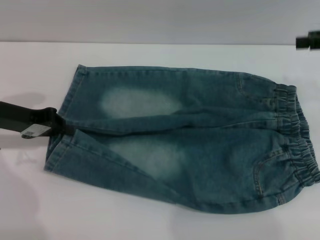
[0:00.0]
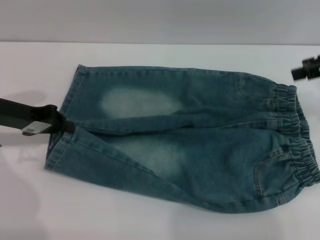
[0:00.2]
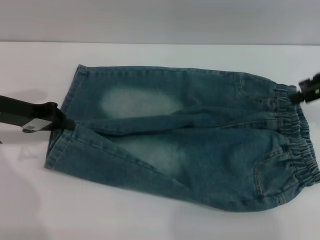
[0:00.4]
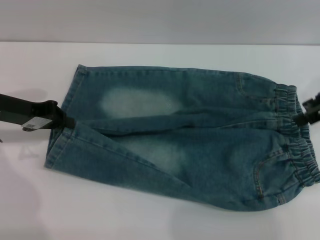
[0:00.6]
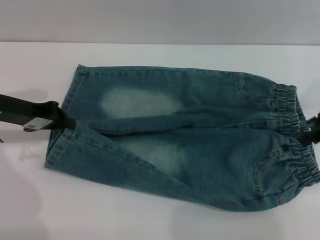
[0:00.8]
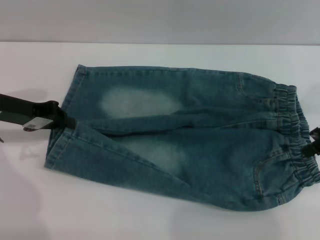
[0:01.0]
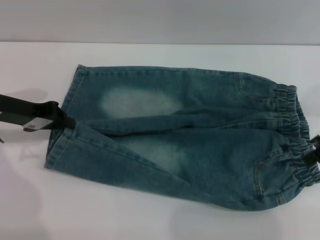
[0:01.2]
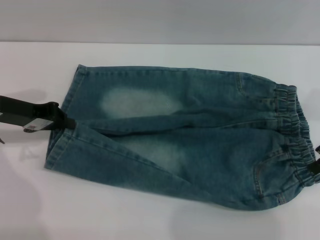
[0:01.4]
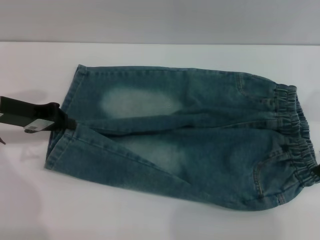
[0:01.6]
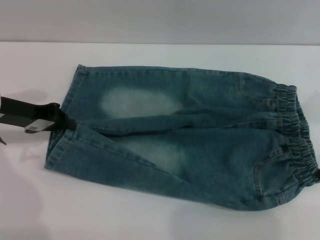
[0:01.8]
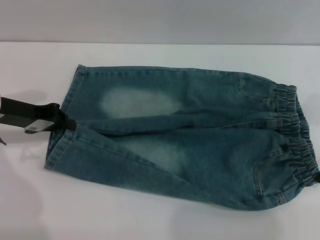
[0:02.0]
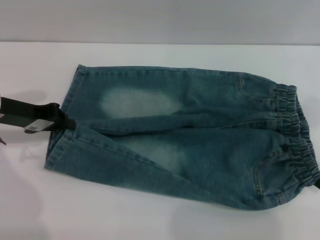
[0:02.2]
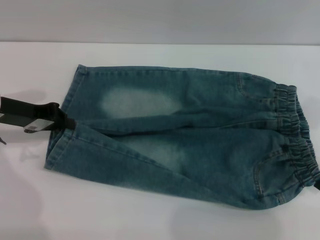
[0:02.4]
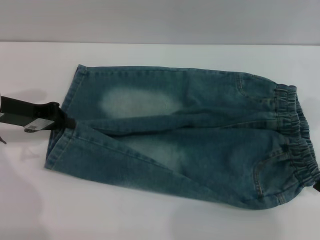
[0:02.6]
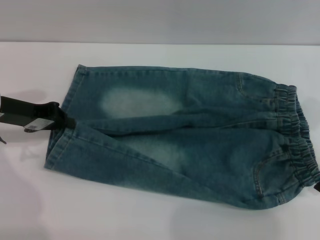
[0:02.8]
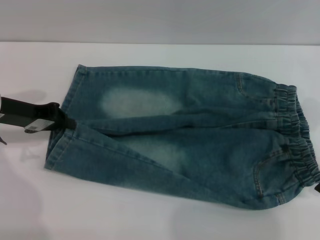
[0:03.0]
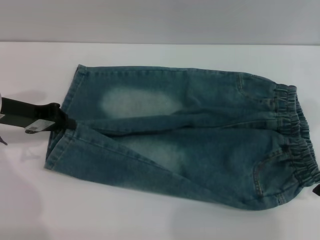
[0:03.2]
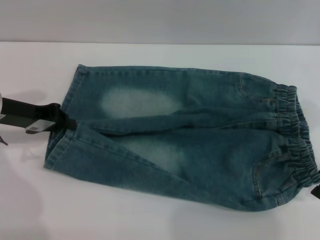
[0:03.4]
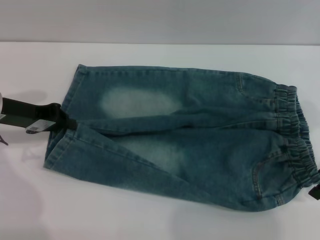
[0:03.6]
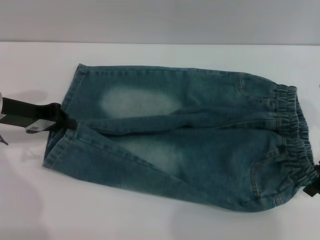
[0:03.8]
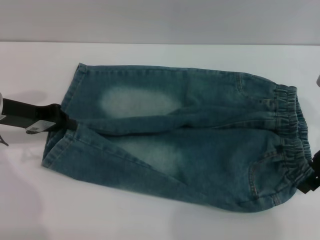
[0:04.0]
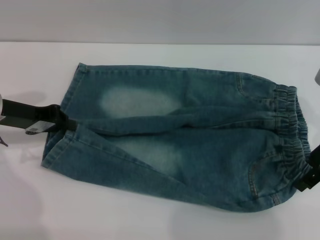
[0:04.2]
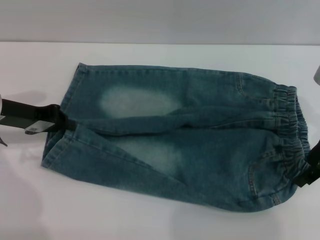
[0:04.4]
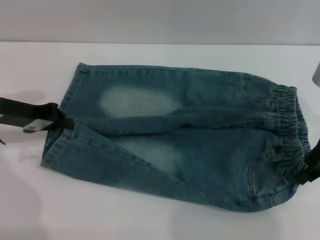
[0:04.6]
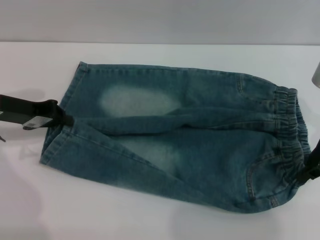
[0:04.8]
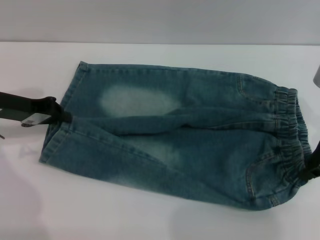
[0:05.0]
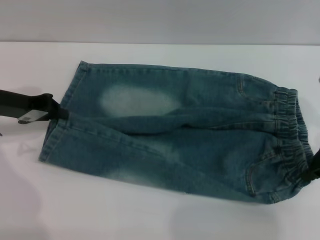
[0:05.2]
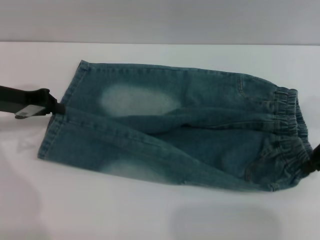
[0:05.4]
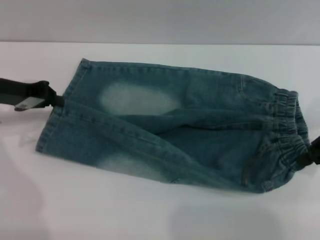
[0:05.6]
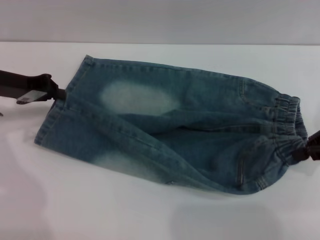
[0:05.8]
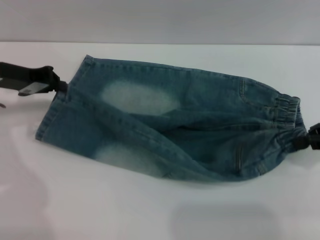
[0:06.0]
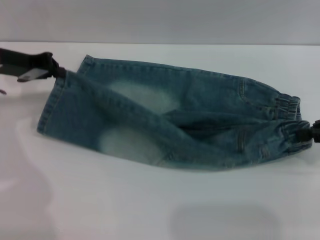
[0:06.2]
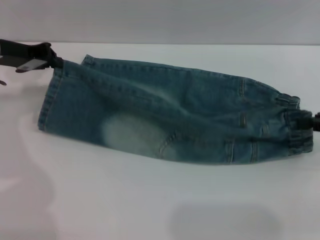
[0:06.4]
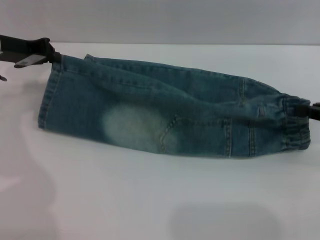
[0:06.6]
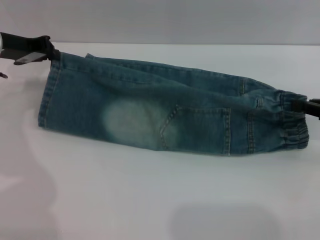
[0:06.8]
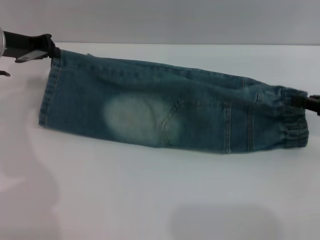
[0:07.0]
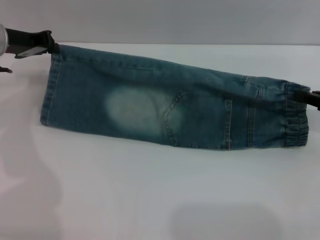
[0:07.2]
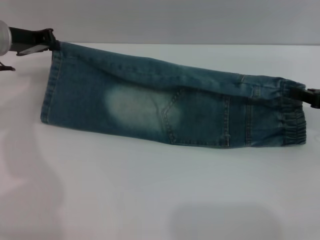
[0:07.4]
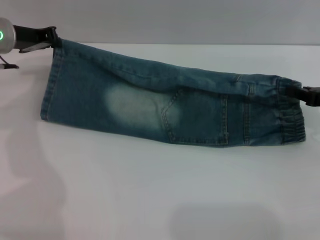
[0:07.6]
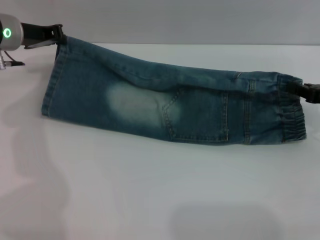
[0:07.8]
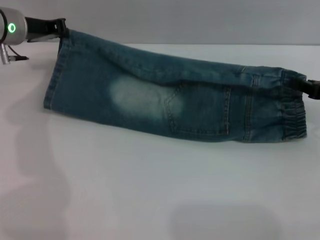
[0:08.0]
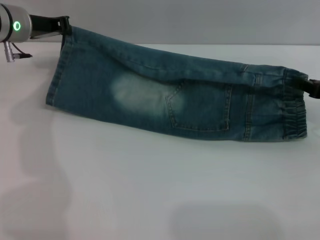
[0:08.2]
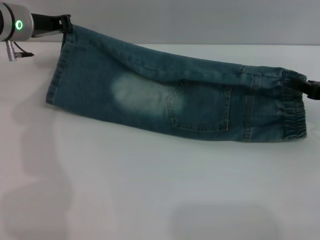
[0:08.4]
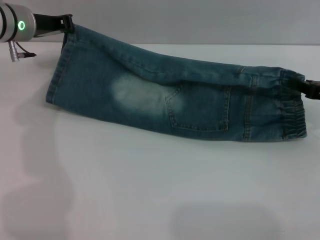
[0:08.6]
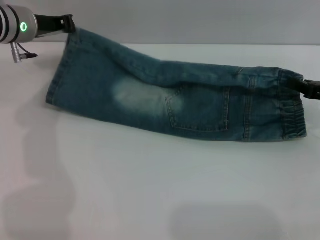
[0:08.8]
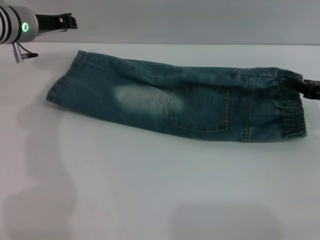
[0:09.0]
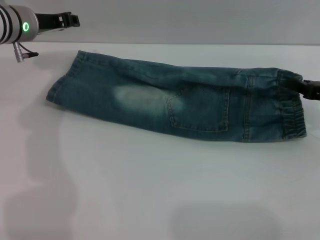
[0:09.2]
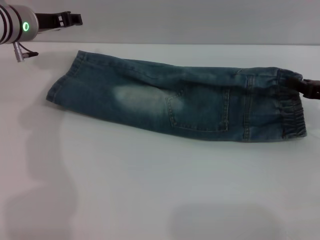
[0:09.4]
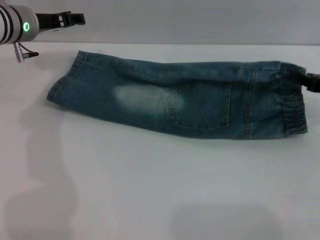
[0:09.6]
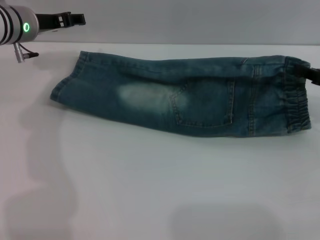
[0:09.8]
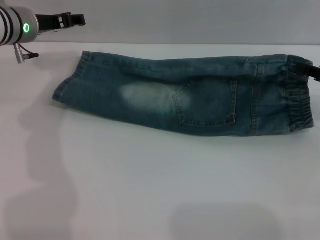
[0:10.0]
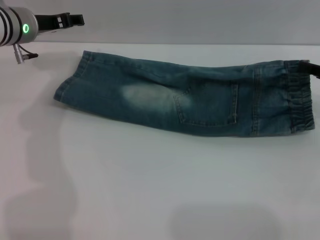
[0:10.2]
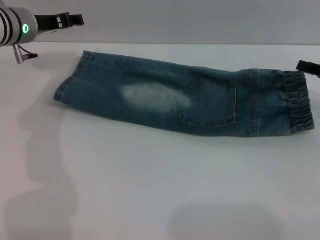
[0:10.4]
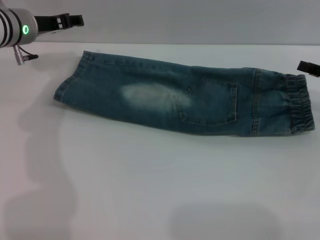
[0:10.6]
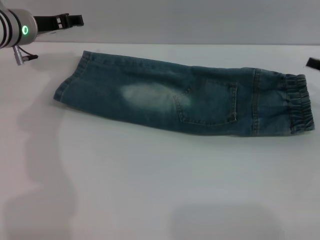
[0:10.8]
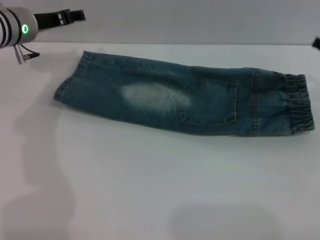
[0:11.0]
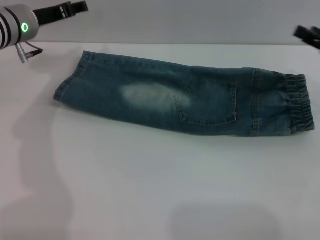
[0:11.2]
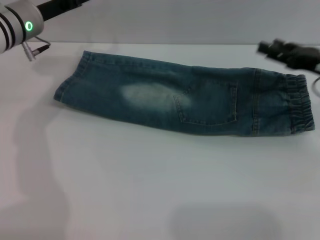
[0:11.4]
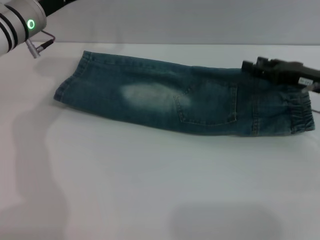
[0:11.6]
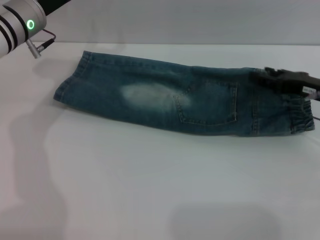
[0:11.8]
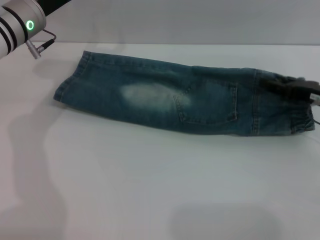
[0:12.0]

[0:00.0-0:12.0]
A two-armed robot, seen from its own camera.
Step, 0:00.0 to 0:10.4: Fold the bottom of the pants upward with both grippers.
0:00.0 to 0:01.6: The right gripper goes about 5 cm downward.
0:01.6 to 0:04.4: There are only small adjustments of the grippers.
0:04.4 to 0:06.0: The right gripper travels to the right by some 5 cm, and closes up.
0:06.0 to 0:07.6: The left gripper changes place by about 5 cm; the right gripper travels downward by roughly 5 cm.
0:07.6 to 0:09.0: The grippers stay close to where they were, moving slightly.
0:09.0 to 0:10.4: The left gripper opens up.
0:10.4 to 0:12.0: The right gripper shifts by about 5 cm, and opens.

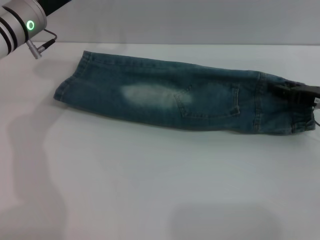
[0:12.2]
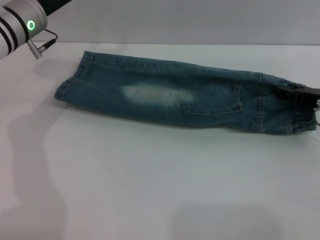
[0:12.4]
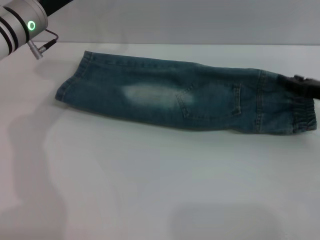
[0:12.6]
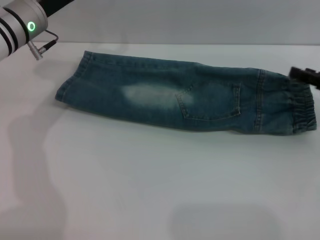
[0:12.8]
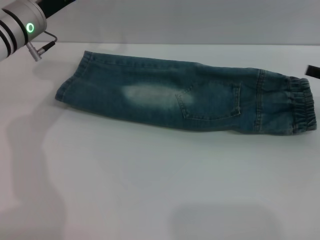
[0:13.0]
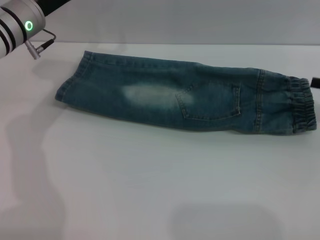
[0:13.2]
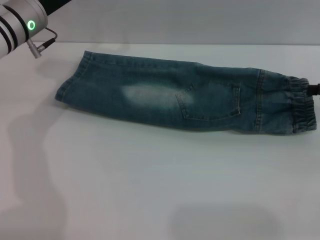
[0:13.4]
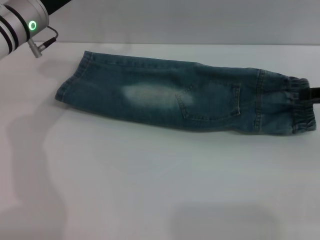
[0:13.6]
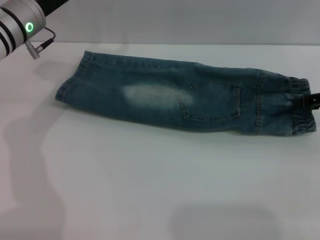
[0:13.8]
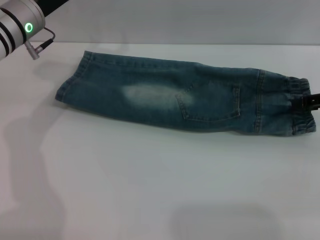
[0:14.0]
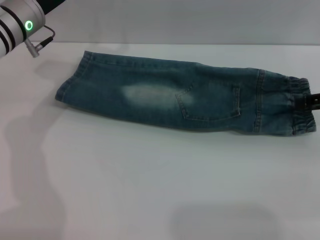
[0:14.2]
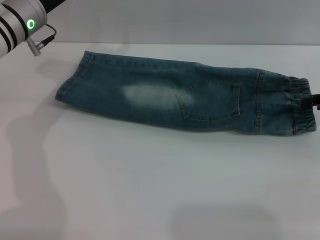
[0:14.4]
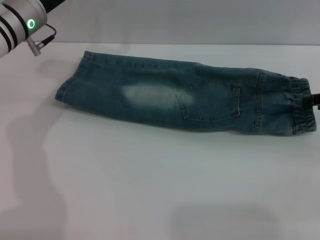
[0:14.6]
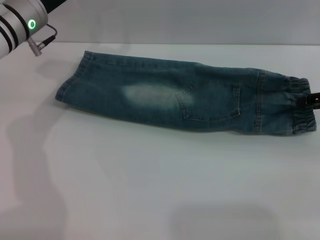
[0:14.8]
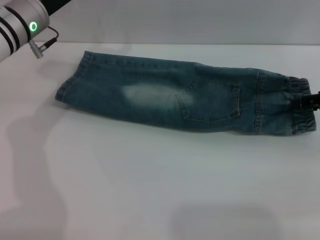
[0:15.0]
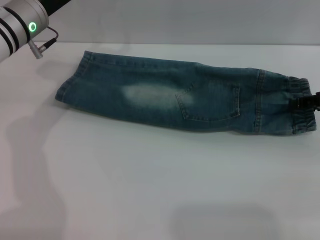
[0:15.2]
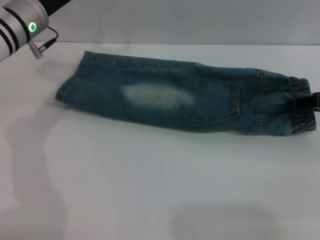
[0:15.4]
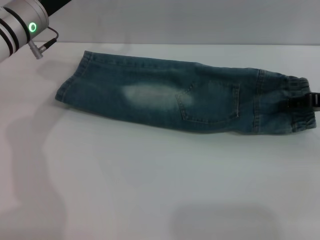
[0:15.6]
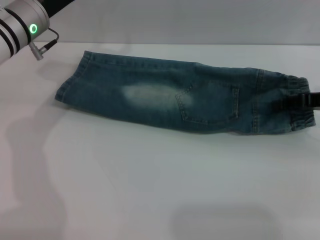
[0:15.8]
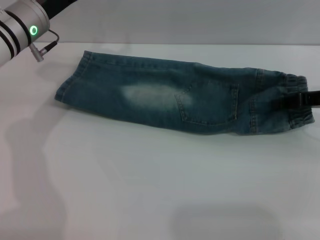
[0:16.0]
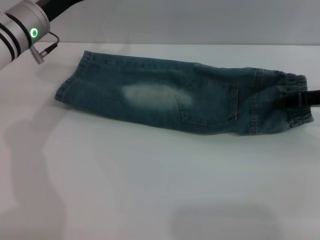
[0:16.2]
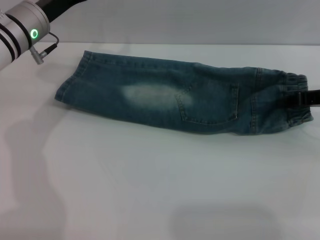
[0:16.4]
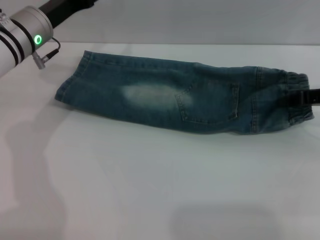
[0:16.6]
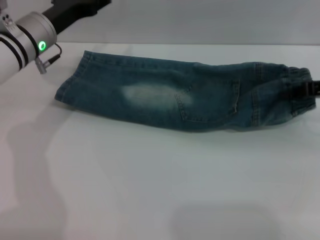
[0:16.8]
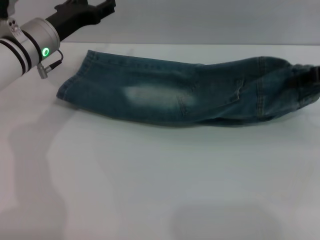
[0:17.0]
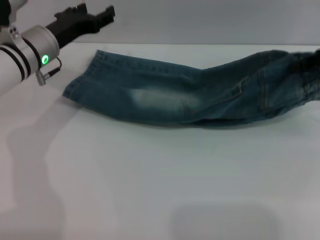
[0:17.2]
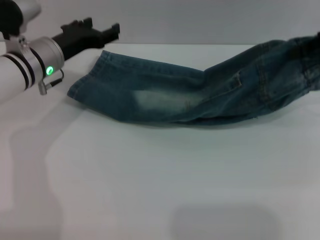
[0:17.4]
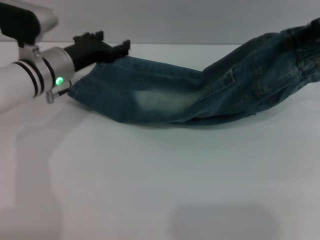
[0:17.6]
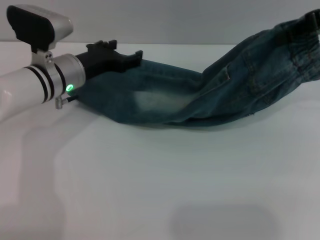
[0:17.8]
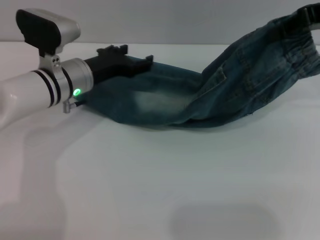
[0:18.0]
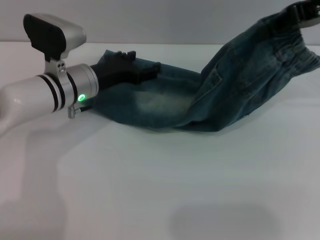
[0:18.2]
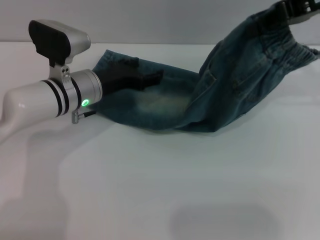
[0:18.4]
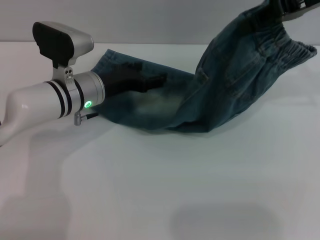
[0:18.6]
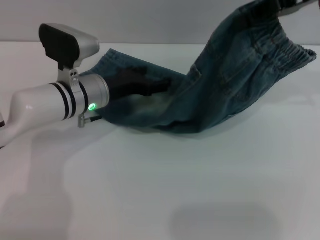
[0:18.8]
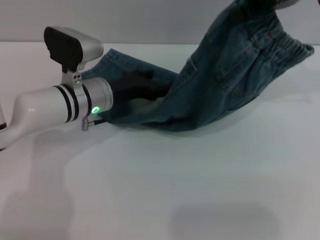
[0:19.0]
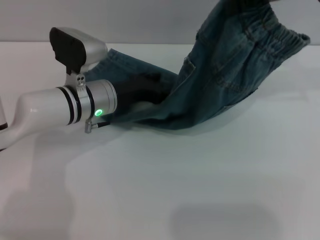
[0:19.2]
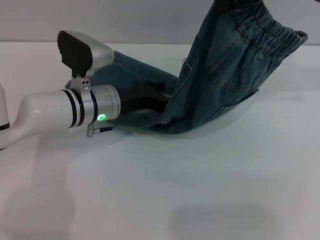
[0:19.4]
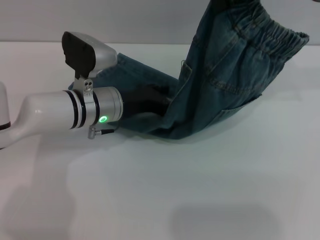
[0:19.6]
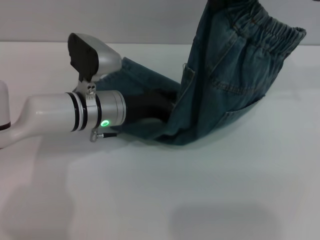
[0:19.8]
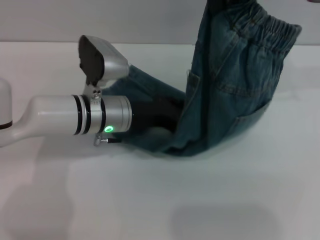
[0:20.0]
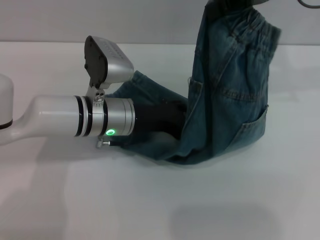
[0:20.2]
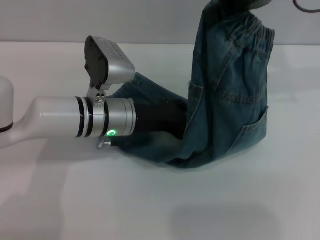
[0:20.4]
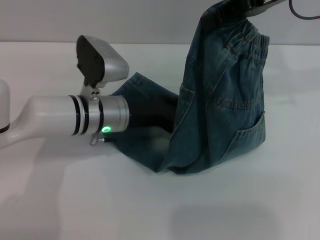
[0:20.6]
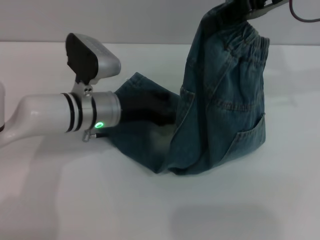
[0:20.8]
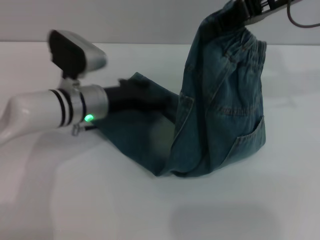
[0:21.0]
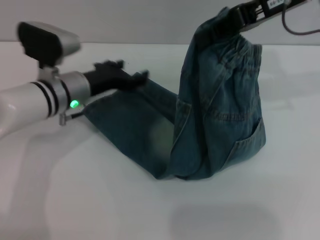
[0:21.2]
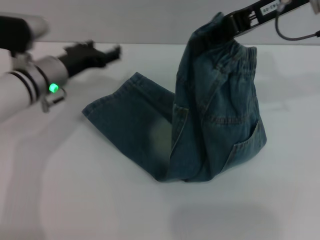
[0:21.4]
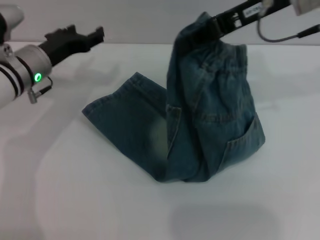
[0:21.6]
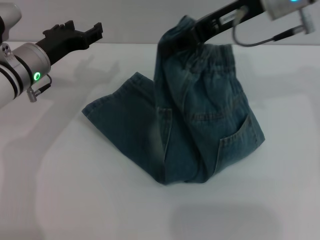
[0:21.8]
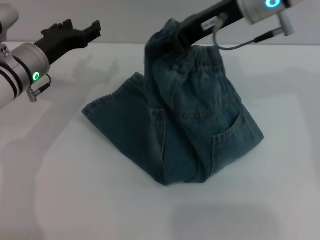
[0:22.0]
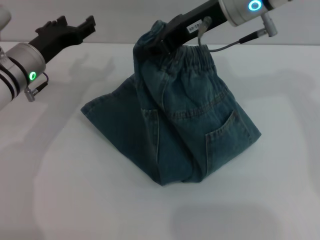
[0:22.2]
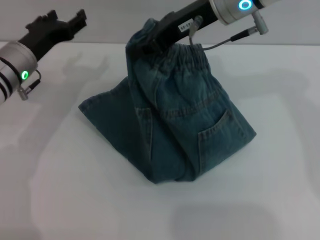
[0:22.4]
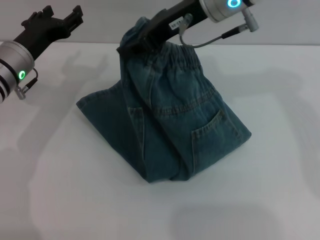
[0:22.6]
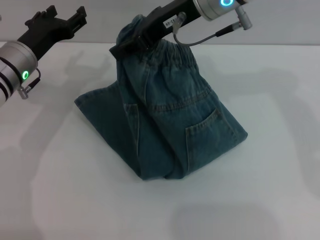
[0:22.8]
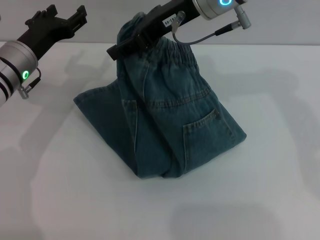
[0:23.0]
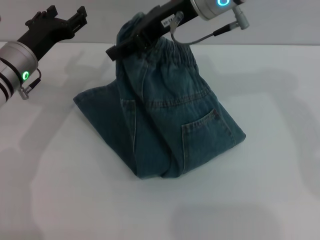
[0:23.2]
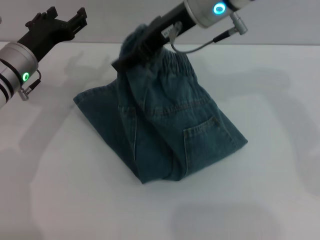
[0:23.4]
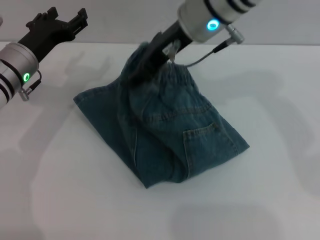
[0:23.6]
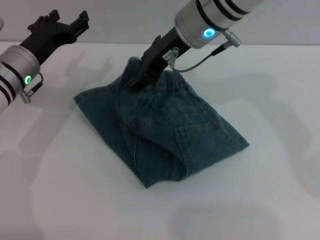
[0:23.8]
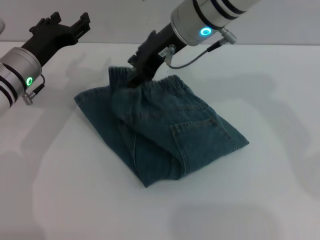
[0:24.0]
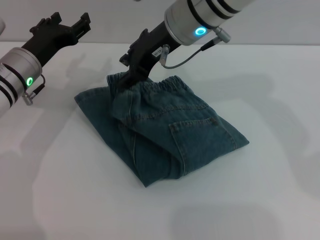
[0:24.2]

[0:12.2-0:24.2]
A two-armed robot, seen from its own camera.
0:12.2 to 0:13.8: The right gripper goes roughly 5 cm upward.
0:13.8 to 0:15.2: Neither gripper changes place.
0:15.2 to 0:16.6: The right gripper closes up.
0:16.6 to 0:18.2: The left gripper shifts roughly 10 cm downward and to the right. The right gripper is displaced upward by some 15 cm.
0:18.2 to 0:19.8: The right gripper goes roughly 5 cm to the left.
0:19.8 to 0:21.2: The left gripper ends up some 5 cm from where it was.
0:21.2 to 0:22.6: The right gripper moves to the left, some 10 cm; the left gripper shifts some 5 cm to the left.
0:22.6 to 0:24.2: The right gripper changes place by approximately 5 cm, and opens up.
